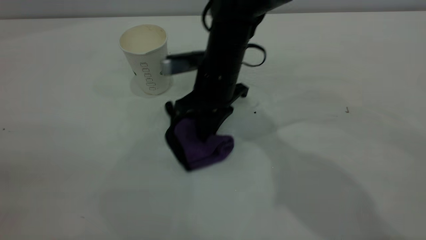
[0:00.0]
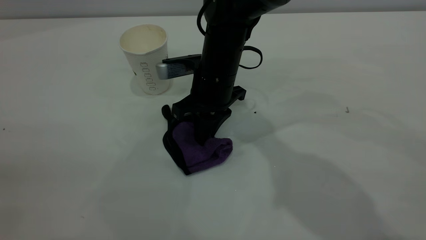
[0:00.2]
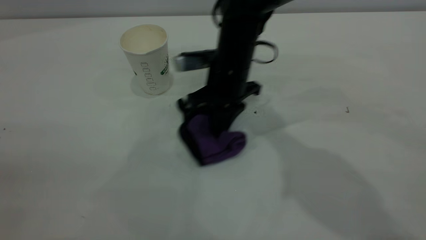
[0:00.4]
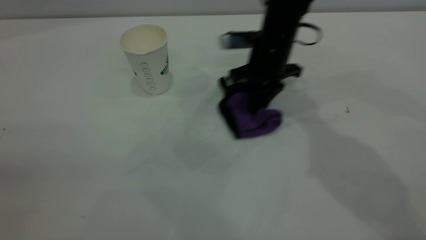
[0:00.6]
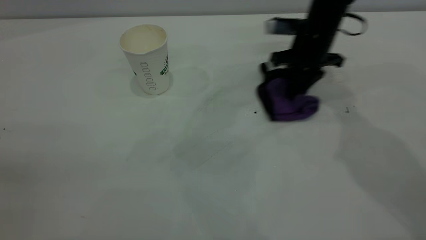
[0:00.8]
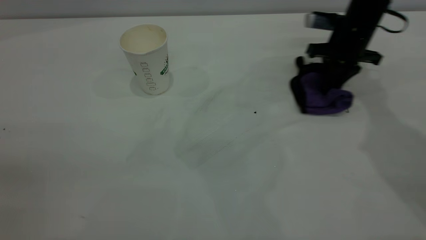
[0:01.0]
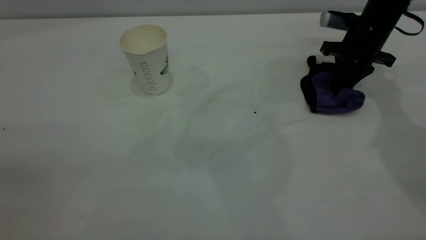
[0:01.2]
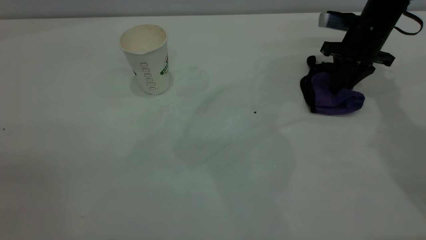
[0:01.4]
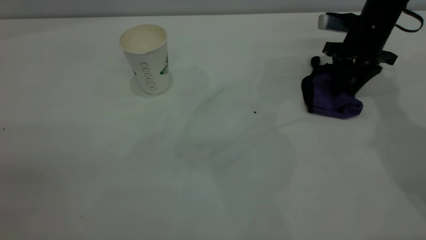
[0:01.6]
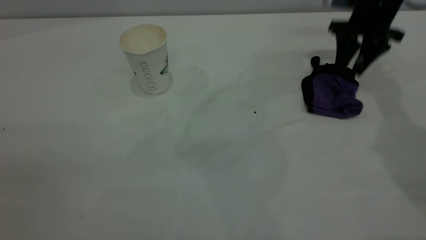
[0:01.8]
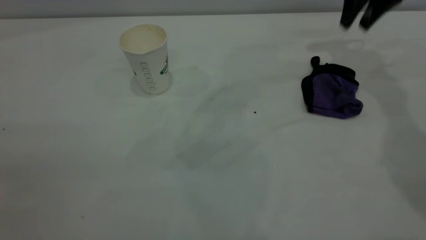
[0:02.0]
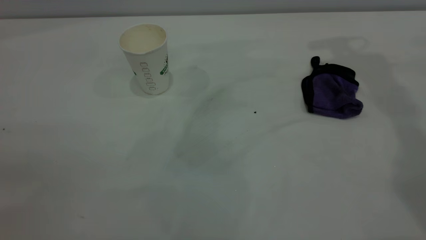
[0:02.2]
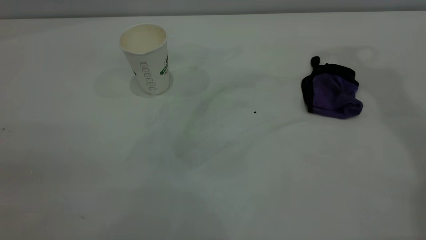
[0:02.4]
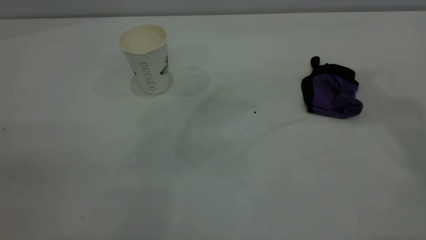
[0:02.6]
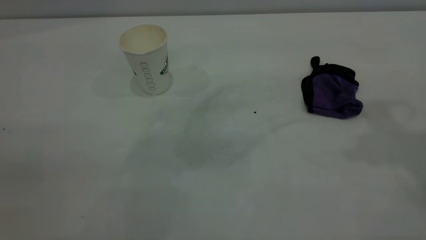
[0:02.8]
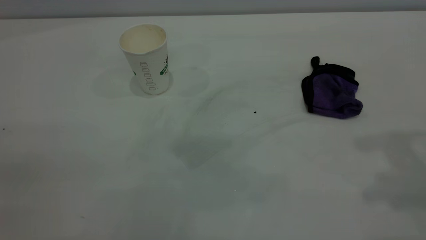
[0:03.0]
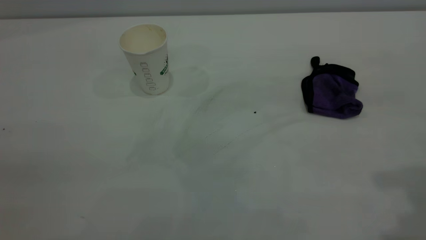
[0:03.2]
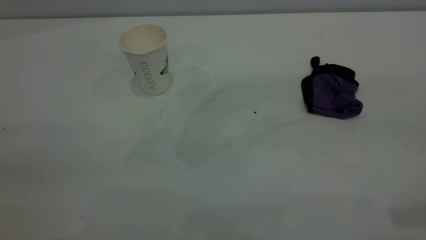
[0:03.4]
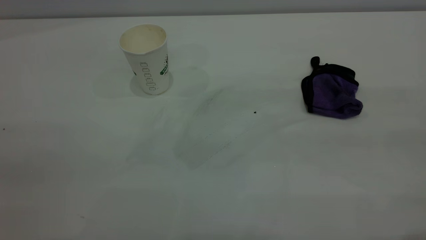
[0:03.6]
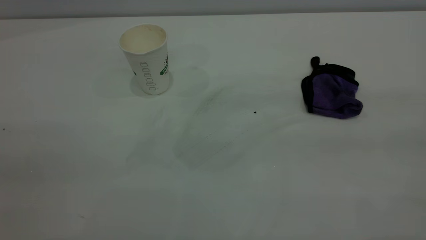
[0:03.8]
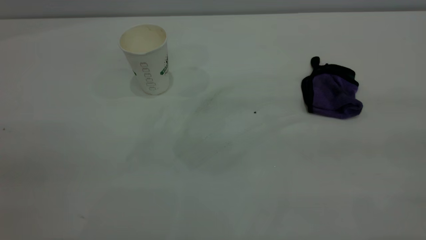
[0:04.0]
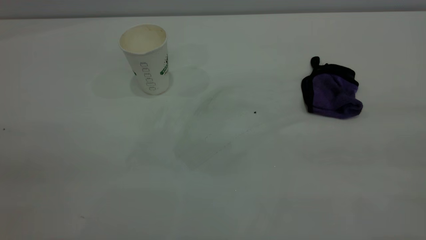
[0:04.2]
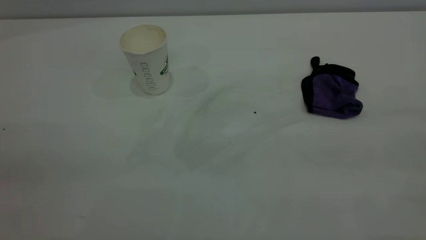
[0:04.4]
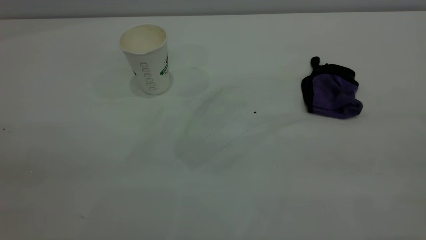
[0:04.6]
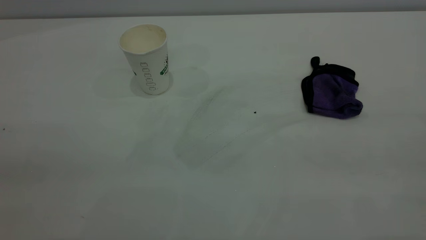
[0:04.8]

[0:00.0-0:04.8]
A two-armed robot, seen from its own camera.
Task of the whole recording: the left gripper pick up the fallen cup and place it upright, the right gripper grasp the purple rag and wipe the coffee stain on the table, the right gripper put the purple rag back in its original position.
0:00.0 to 0:01.6: The right gripper goes about 30 cm to the right and forward, and opens.
0:01.6 to 0:03.2: The right gripper goes roughly 40 cm backward and upward.
